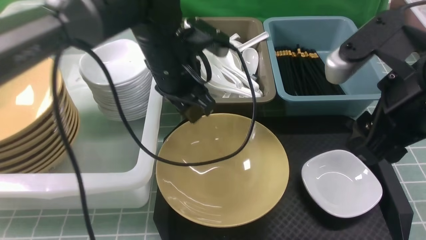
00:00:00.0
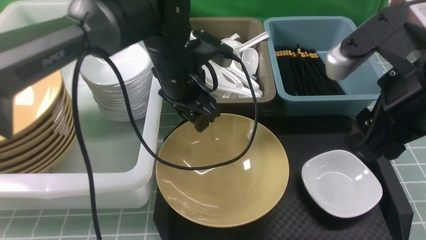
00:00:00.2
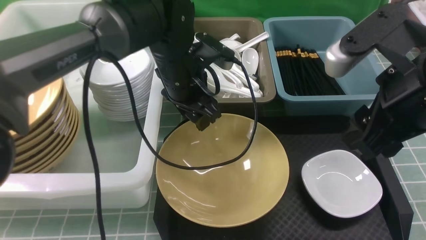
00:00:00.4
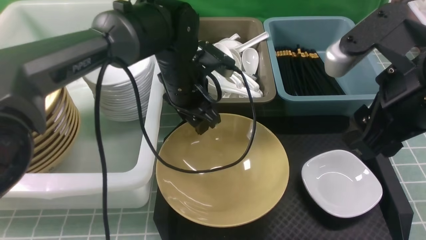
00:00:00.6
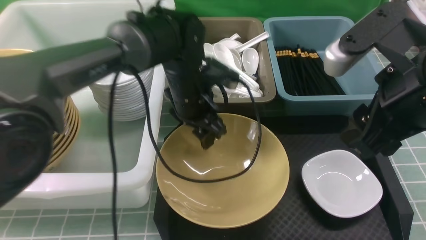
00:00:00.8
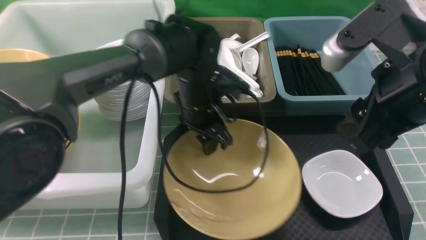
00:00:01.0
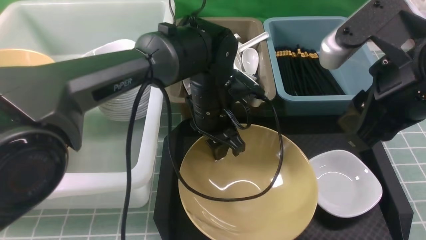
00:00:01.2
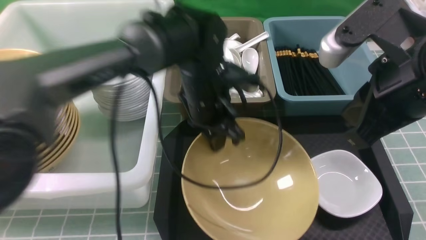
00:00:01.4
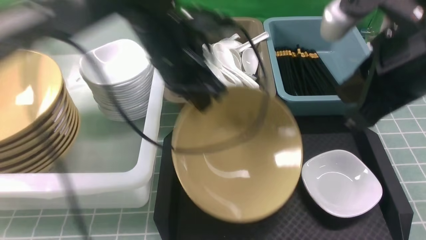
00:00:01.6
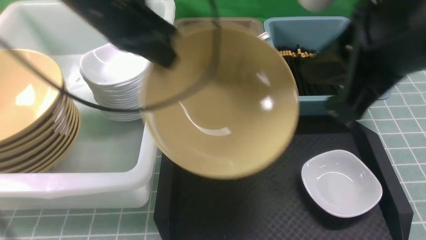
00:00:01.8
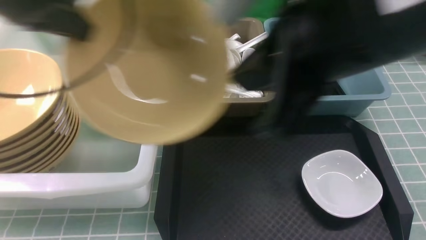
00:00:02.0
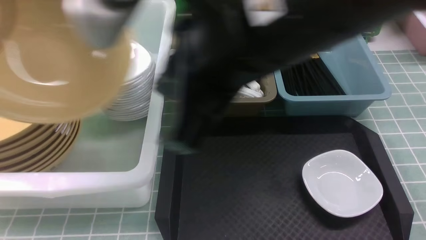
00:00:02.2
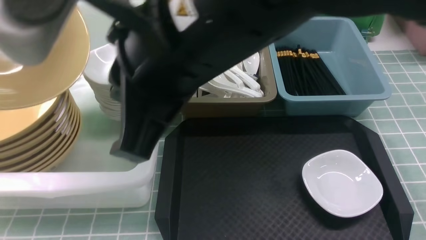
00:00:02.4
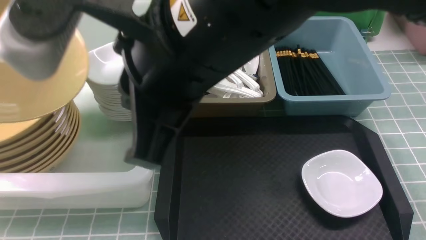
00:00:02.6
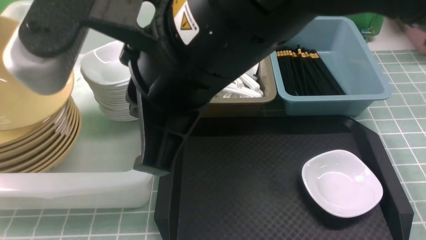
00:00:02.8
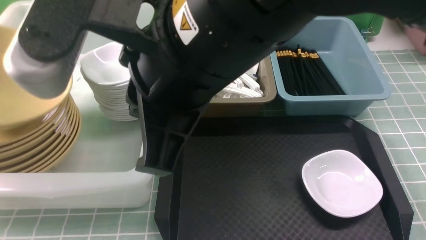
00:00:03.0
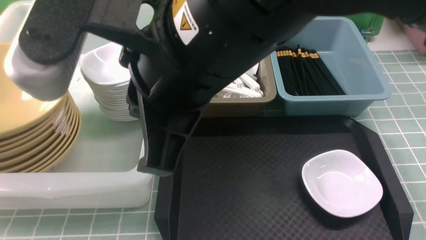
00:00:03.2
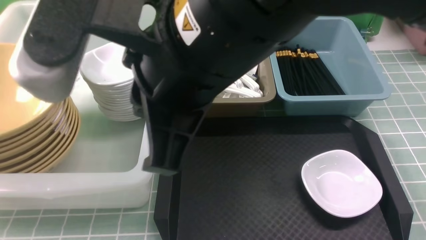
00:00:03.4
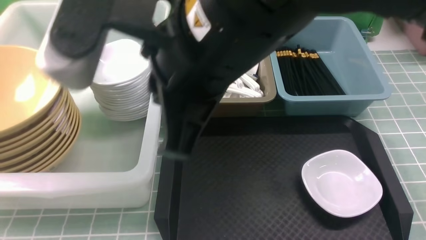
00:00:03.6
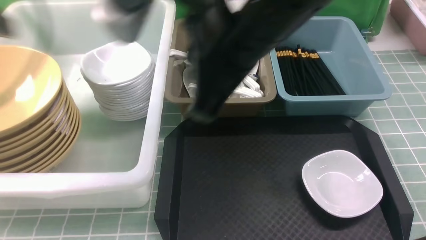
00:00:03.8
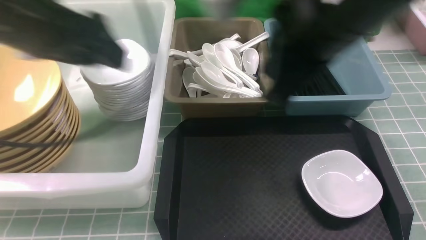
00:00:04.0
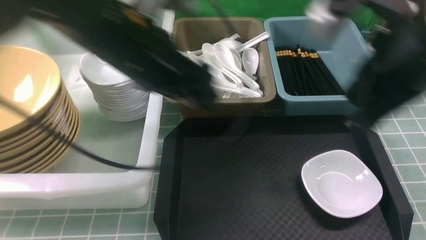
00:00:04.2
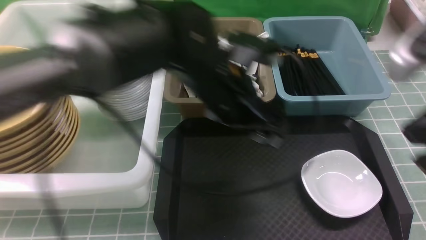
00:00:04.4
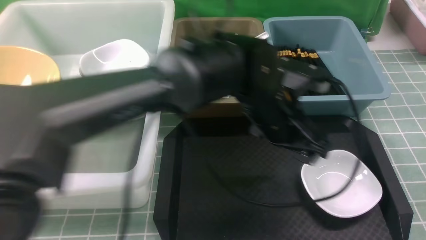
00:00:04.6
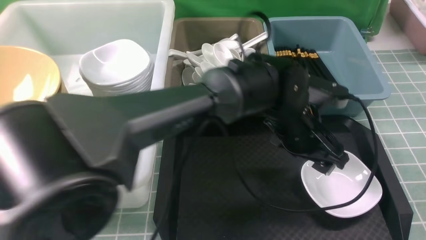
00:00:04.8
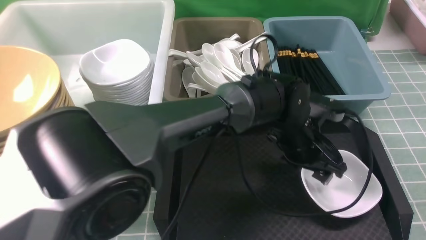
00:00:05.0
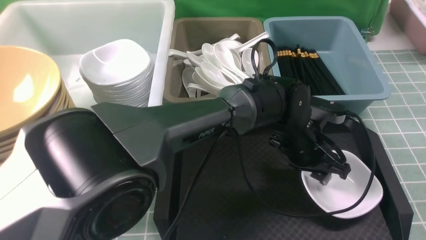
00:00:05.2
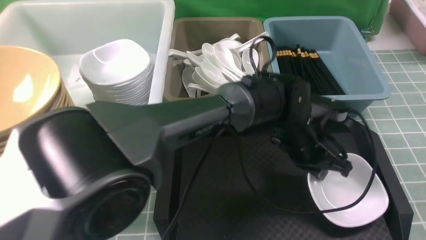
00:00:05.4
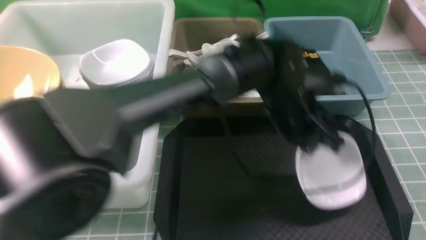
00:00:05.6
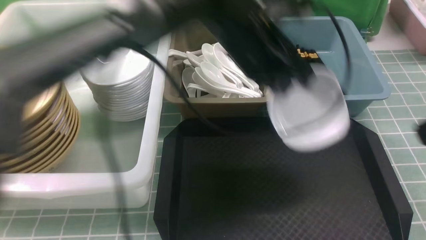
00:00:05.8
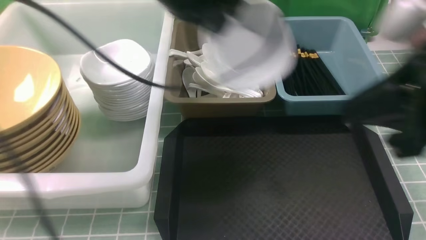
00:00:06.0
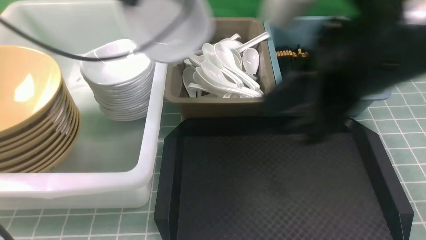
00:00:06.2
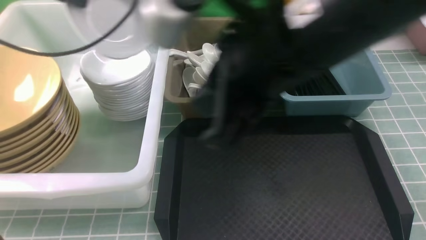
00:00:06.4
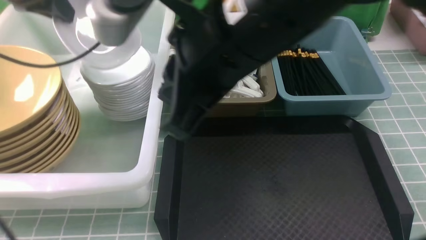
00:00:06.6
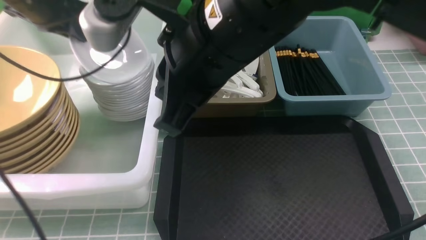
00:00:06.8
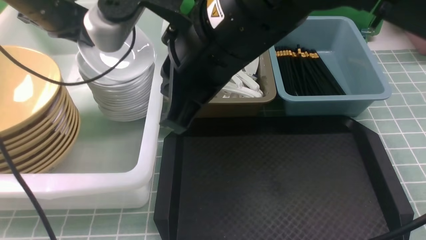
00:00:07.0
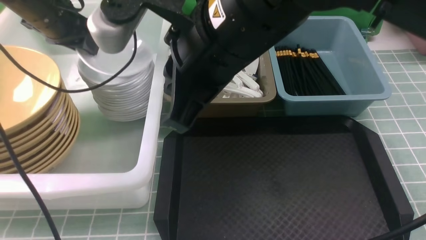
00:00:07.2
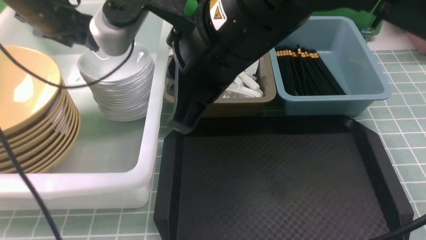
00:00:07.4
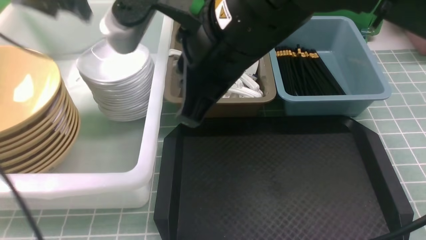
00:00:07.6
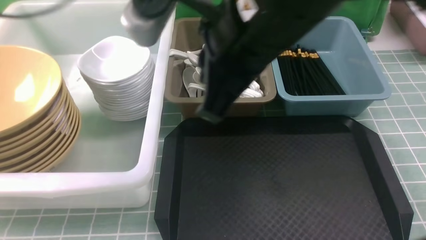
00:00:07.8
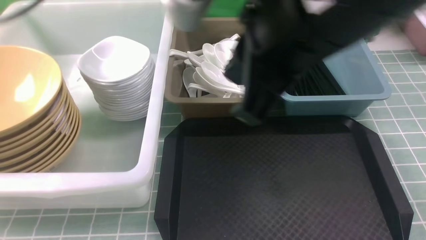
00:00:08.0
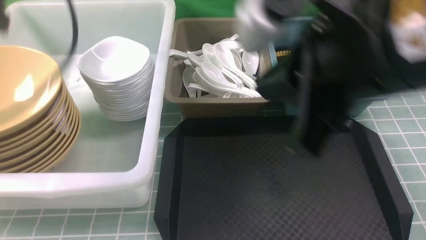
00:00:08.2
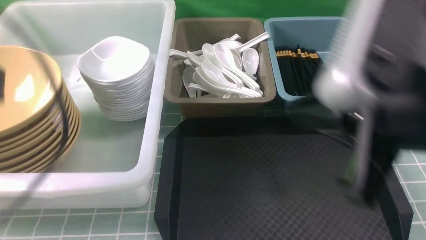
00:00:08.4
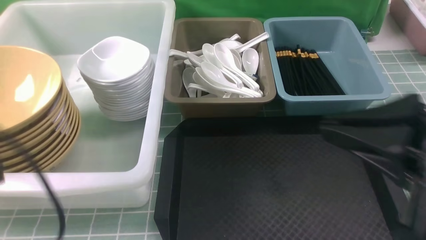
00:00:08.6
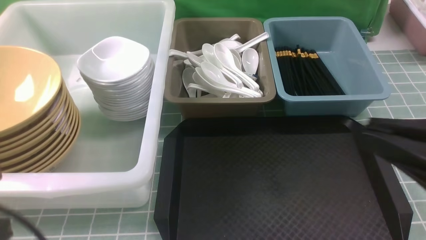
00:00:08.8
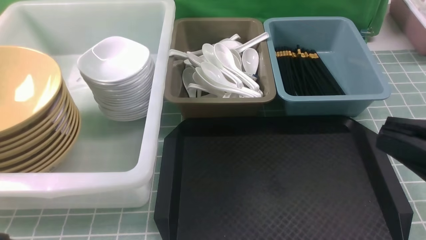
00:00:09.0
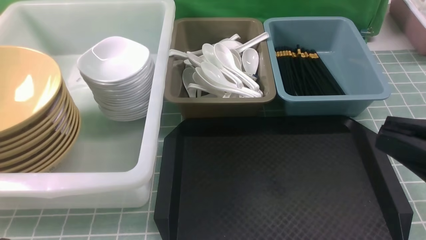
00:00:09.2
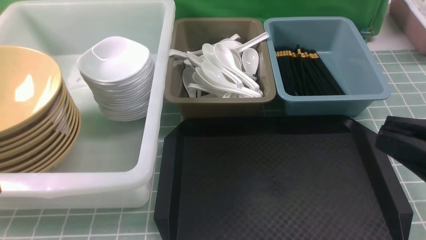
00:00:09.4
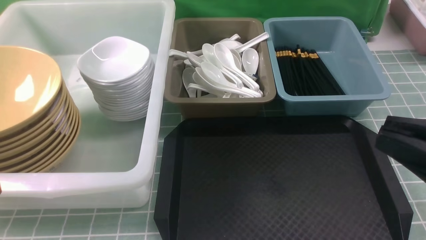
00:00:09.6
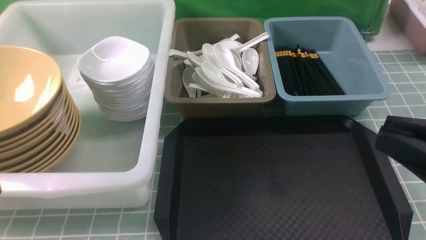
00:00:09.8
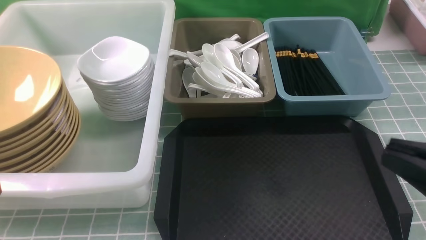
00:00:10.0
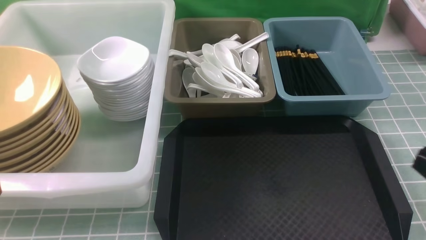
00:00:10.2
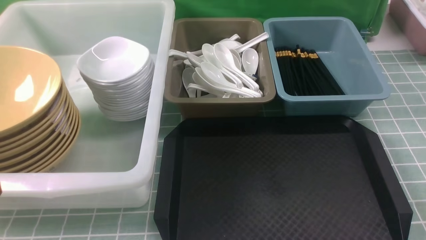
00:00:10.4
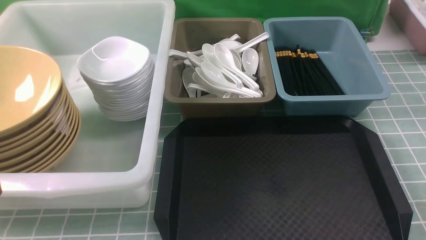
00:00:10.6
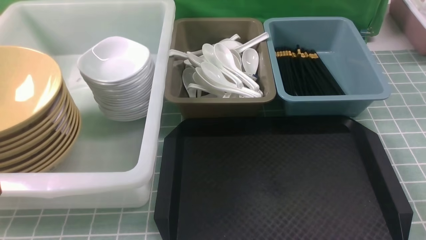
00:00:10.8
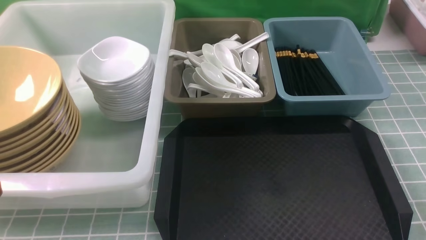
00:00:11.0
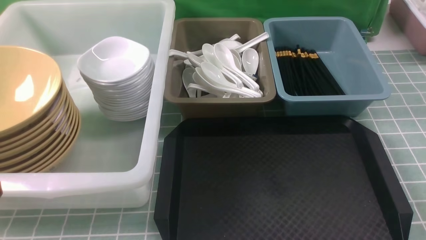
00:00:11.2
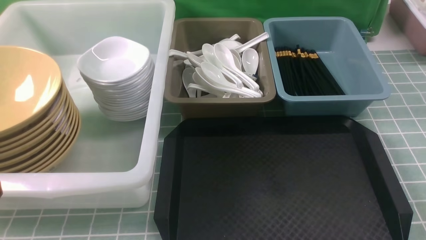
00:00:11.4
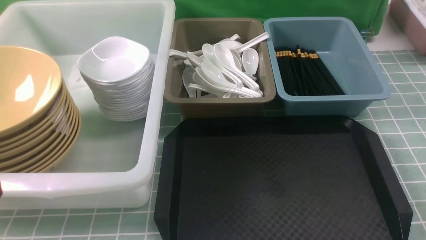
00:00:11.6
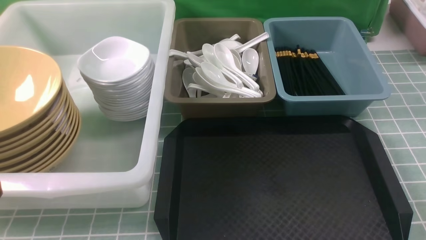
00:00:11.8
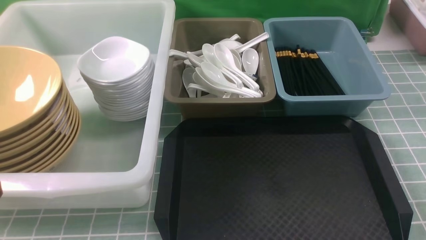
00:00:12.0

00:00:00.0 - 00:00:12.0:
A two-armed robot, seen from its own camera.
Task of the whole recording: on blue table put chopsticks spoon bowls plates into blue grey white boxes.
Step, 00:00:00.0 - 00:00:01.6: use the left arm to grab the yellow noodle bowl on the left.
Step, 00:00:01.8 - 00:00:03.4: use the left arm to put the noodle bowl into the large storage box on the left.
Step, 00:00:03.6 - 00:00:05.4: use the left arm to grab the plate.
Step, 00:00:05.6 - 00:00:07.6: use the left arm to put the plate into the large storage box on the left.
00:00:00.0 - 00:00:01.6: The right gripper closes its fingers. The left gripper closes up.
00:00:01.6 - 00:00:03.0: The right gripper heads to the left, covering about 15 cm, while the left gripper is displaced to the left by roughly 30 cm.
00:00:03.0 - 00:00:04.4: The right gripper heads to the right, covering about 25 cm. The left gripper travels to the right by about 40 cm, and opens.
00:00:04.4 - 00:00:06.0: The right gripper moves to the left, some 5 cm, while the left gripper shifts approximately 15 cm upward, to the left and forward, and closes.
00:00:06.0 - 00:00:07.6: The left gripper moves to the left, about 15 cm, and opens. The right gripper travels to the left and forward by about 15 cm.
00:00:07.6 - 00:00:09.0: The left gripper shifts some 35 cm backward, and closes up. The right gripper goes about 25 cm to the right and backward.
00:00:09.0 - 00:00:10.4: The right gripper travels downward and to the right by approximately 15 cm.

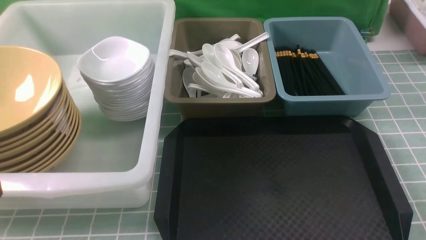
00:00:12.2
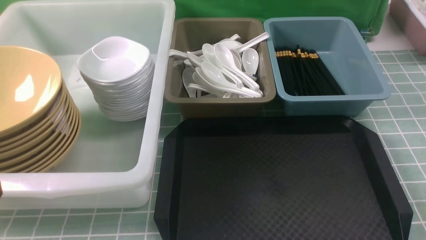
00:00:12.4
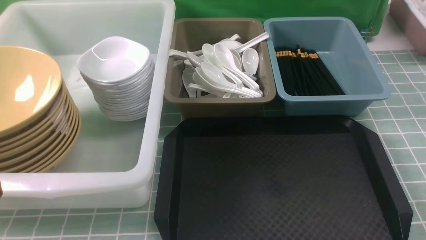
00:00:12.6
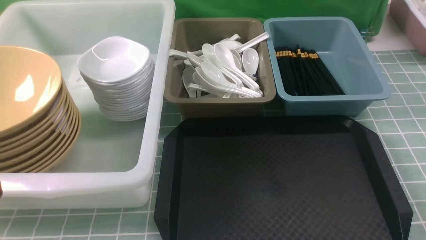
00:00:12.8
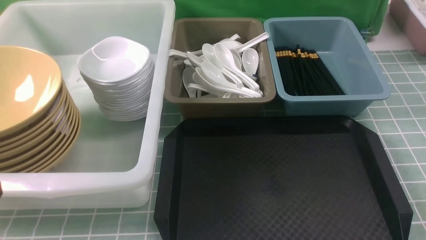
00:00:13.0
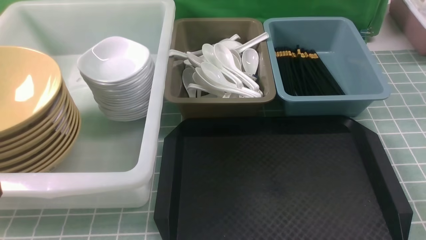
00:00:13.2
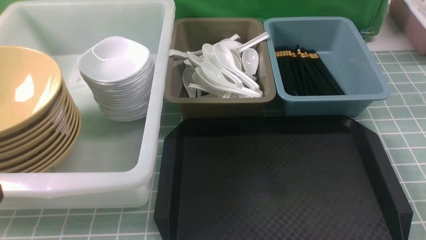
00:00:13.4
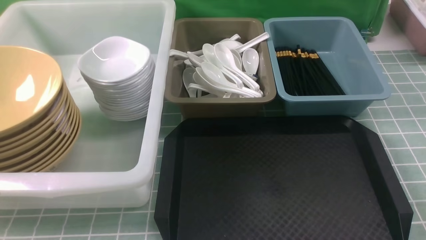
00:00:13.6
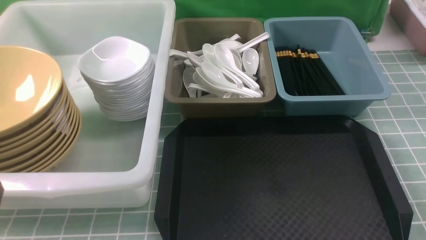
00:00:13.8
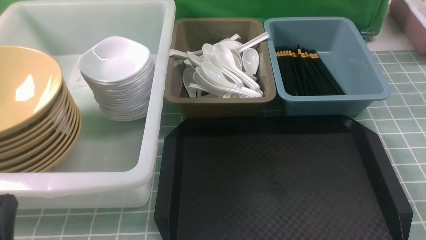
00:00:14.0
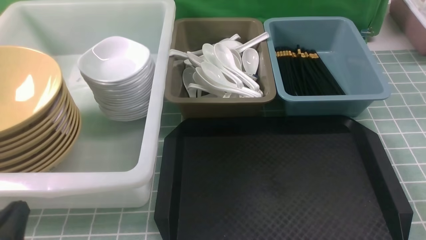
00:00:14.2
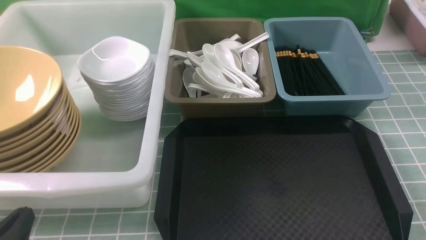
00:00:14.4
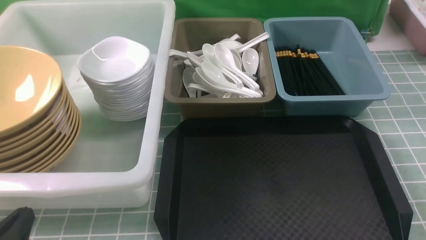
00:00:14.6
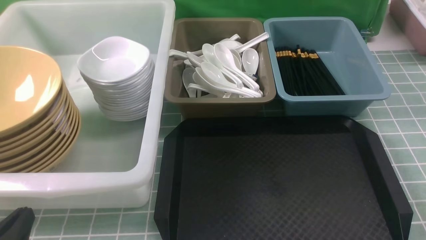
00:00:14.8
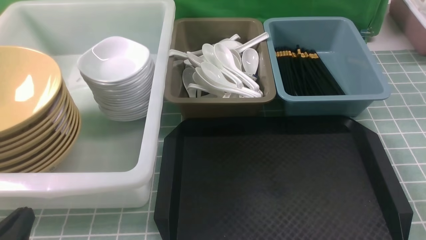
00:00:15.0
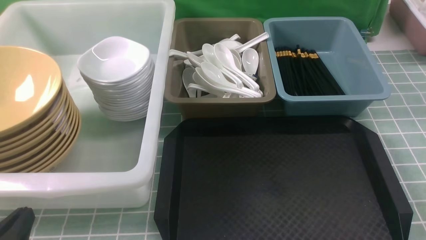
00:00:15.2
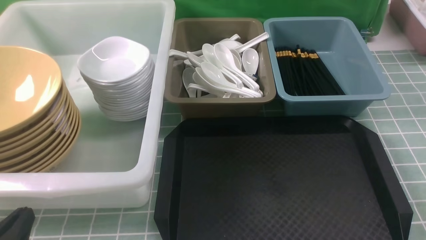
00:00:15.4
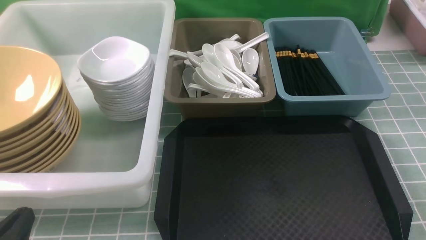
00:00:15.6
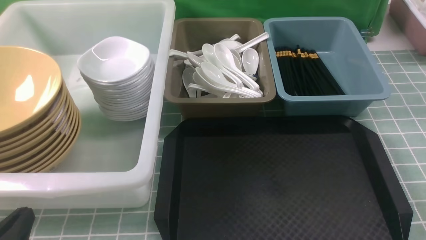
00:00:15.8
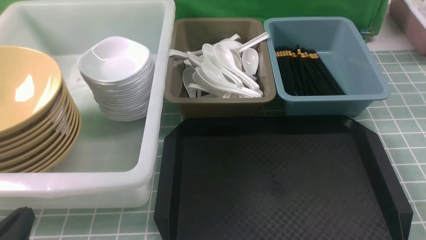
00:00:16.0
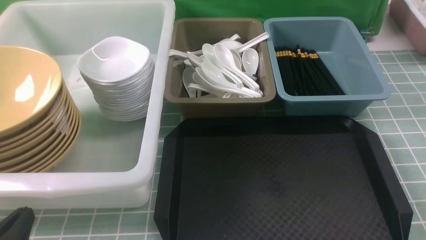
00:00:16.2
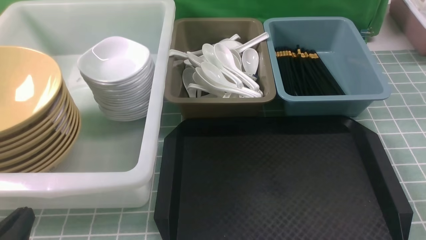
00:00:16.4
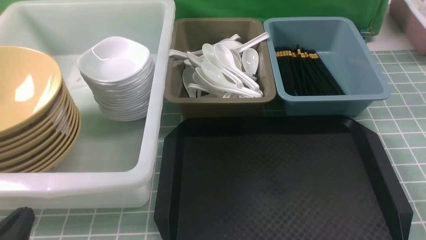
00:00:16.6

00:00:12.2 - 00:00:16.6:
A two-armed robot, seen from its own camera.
Task of the whole recording: on blue table put chopsticks spoon bowls plates into blue grey white boxes.
00:00:13.6 - 00:00:15.2: The left gripper shifts roughly 10 cm downward.
00:00:15.2 - 00:00:16.6: Both grippers stay put.
